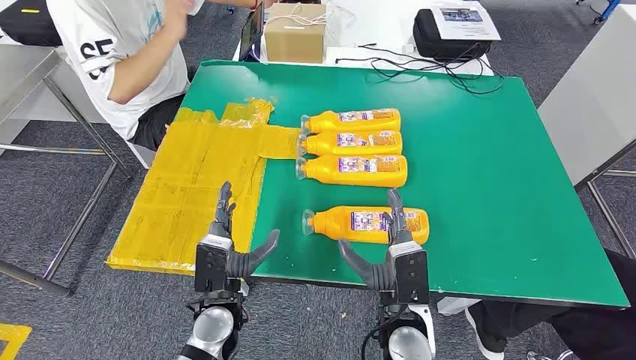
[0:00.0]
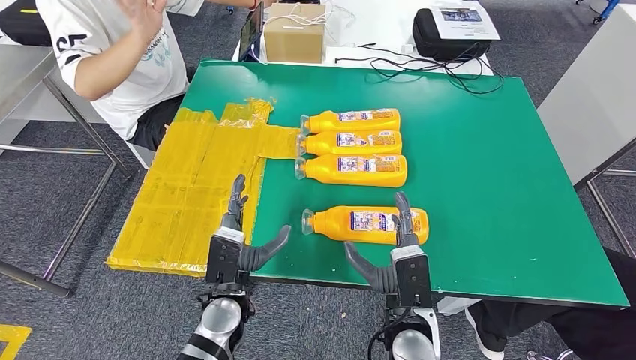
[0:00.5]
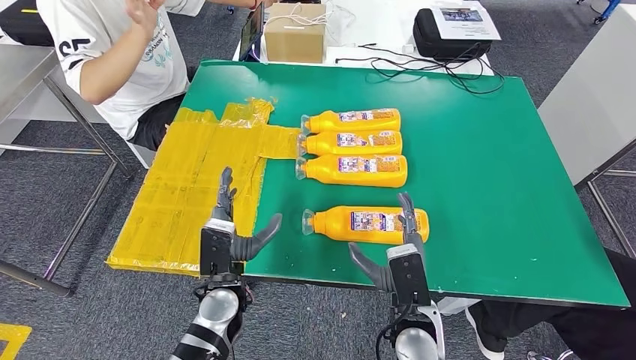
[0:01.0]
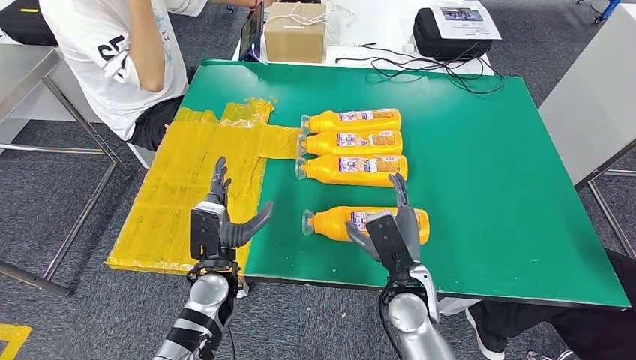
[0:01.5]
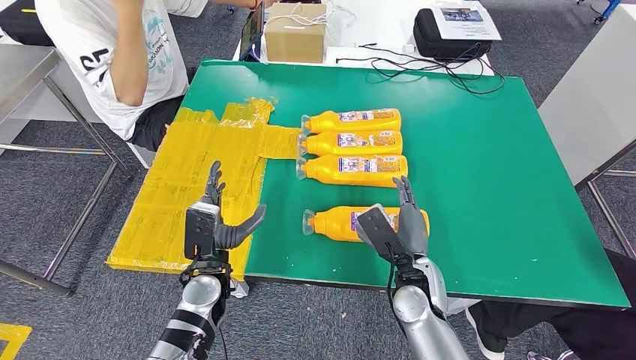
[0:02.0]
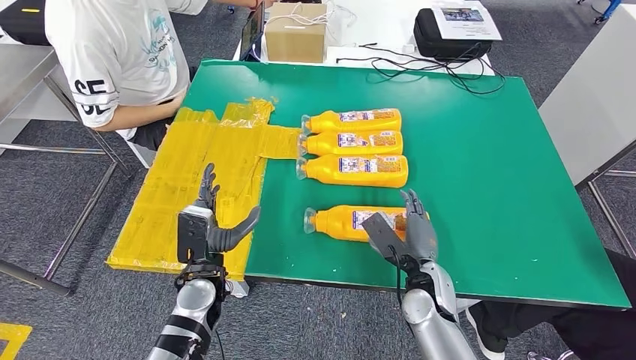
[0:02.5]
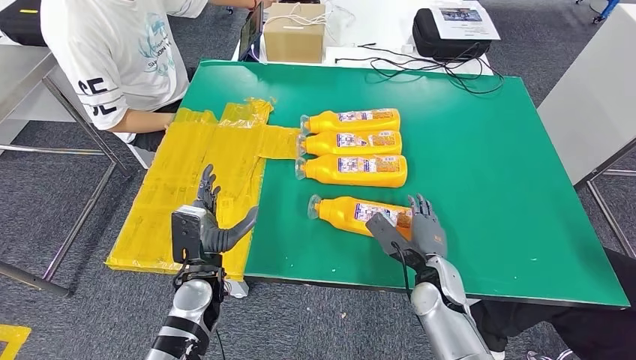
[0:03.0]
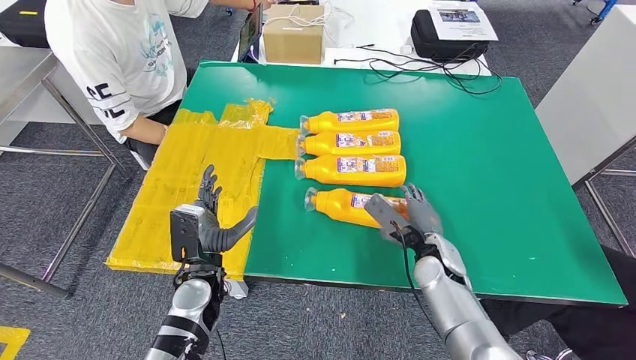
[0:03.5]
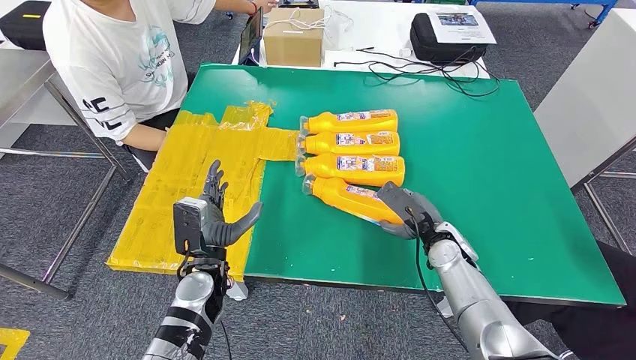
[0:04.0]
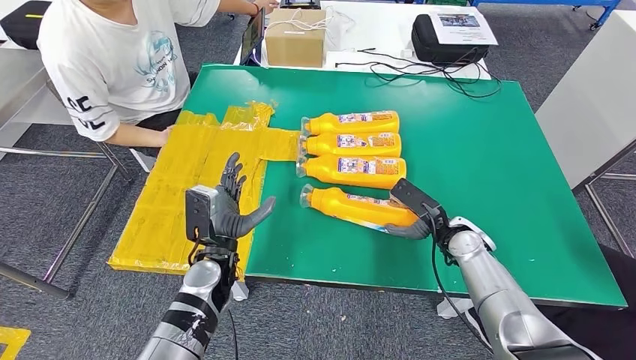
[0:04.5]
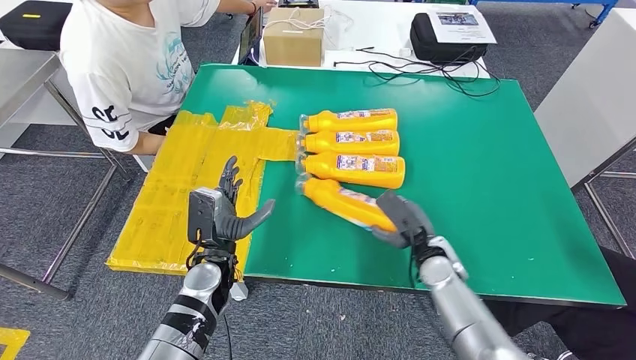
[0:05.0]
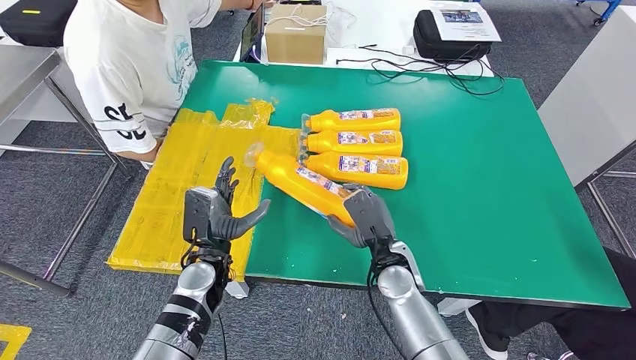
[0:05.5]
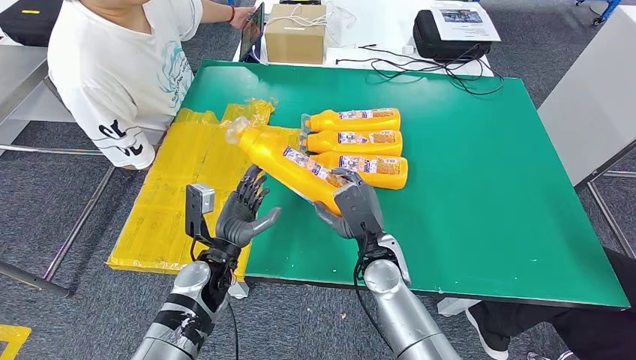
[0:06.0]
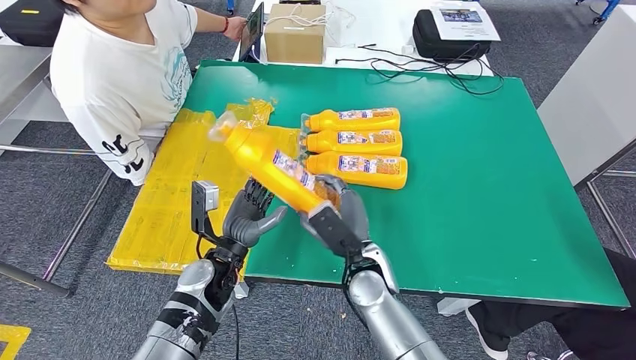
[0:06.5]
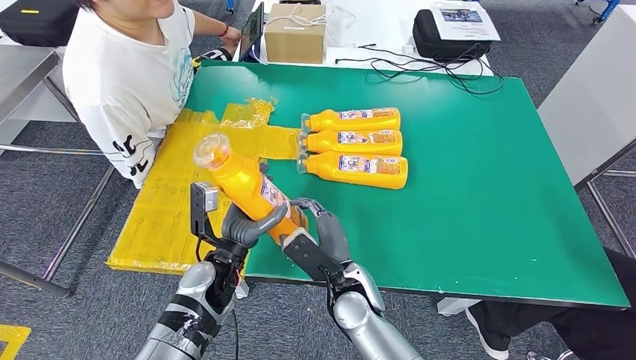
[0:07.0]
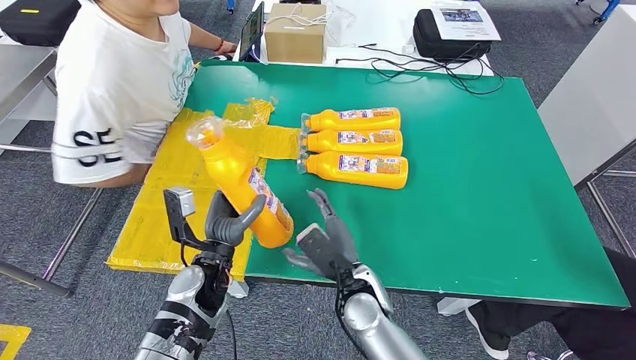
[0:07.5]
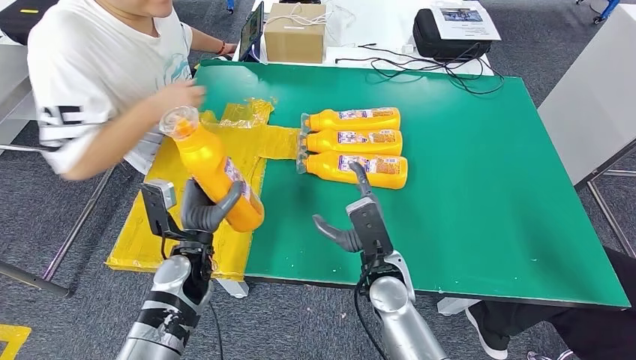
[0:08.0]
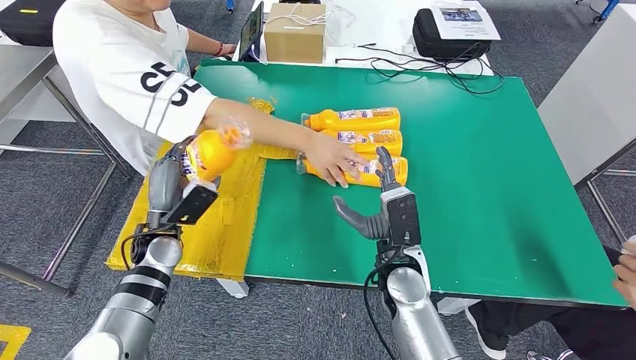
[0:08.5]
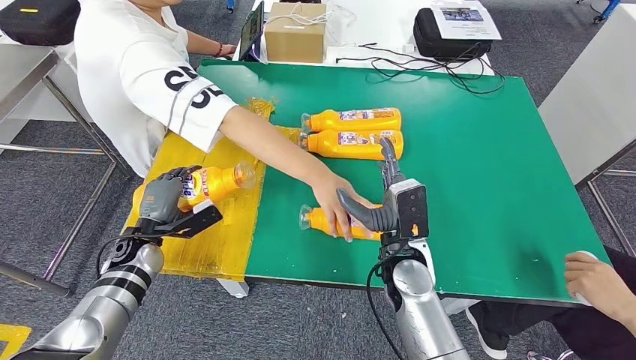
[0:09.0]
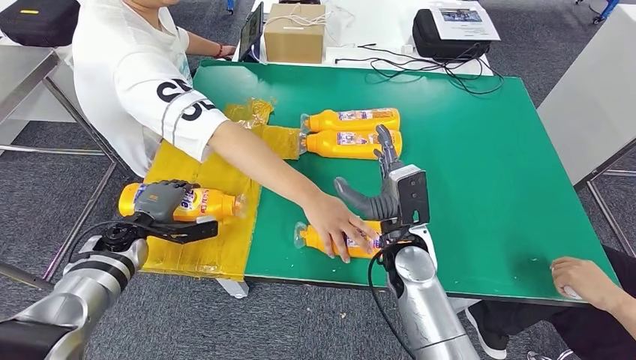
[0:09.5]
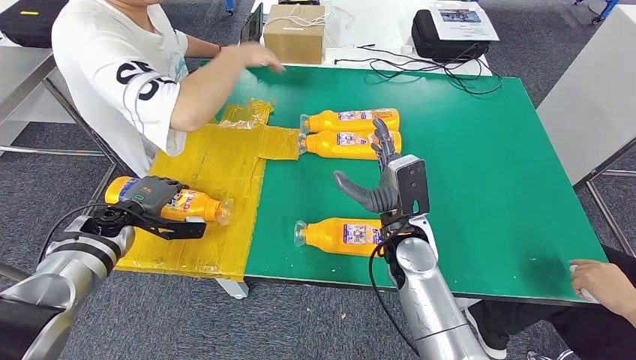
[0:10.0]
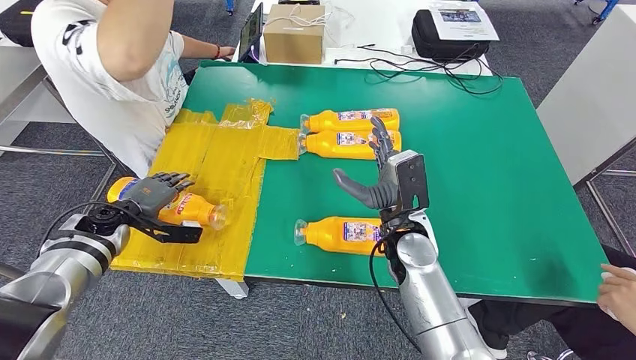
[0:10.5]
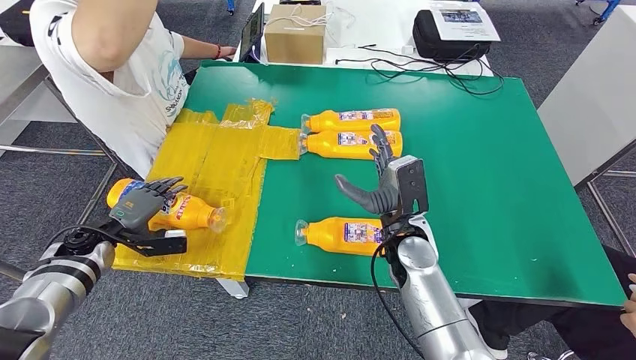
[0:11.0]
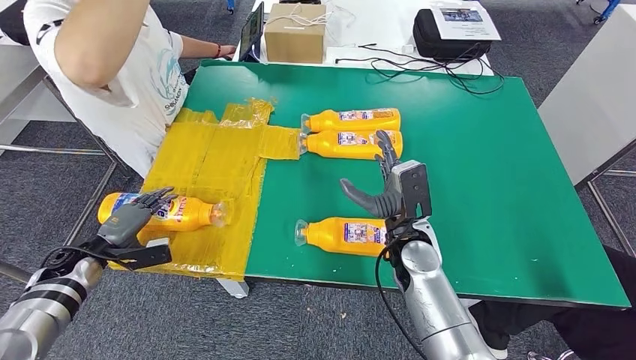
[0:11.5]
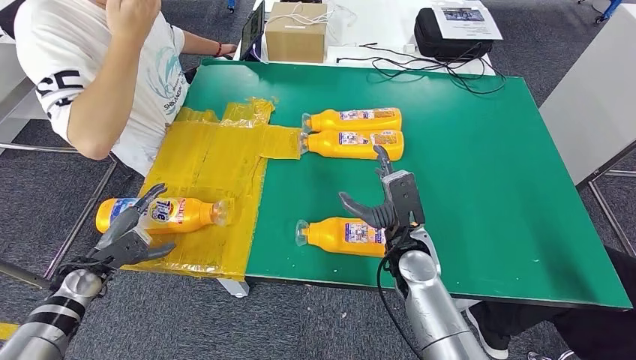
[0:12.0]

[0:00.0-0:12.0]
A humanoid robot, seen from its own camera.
Step, 0:00.0 to 0:05.5: Take the bottle from the table.

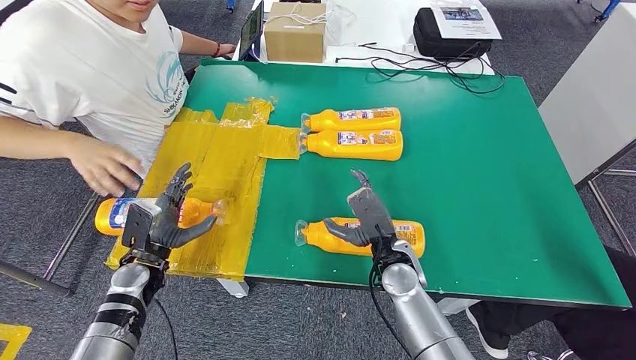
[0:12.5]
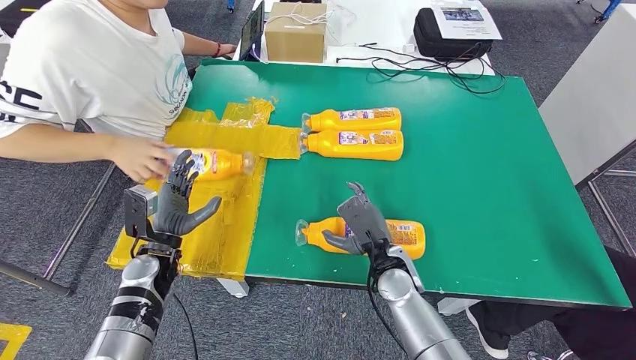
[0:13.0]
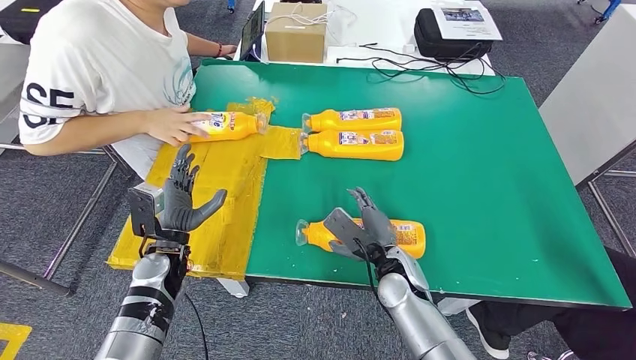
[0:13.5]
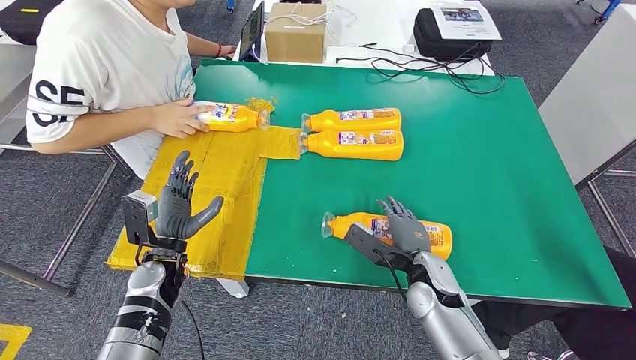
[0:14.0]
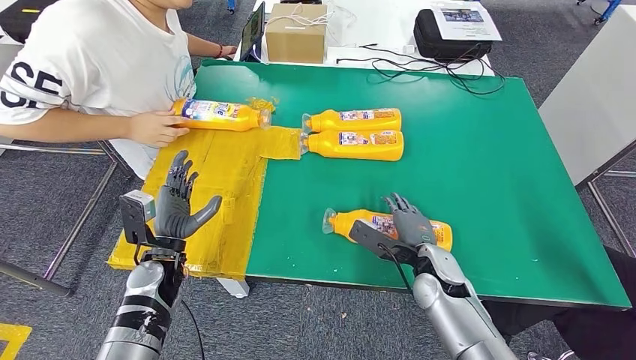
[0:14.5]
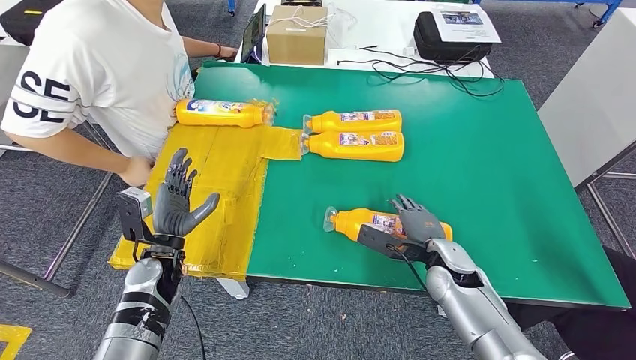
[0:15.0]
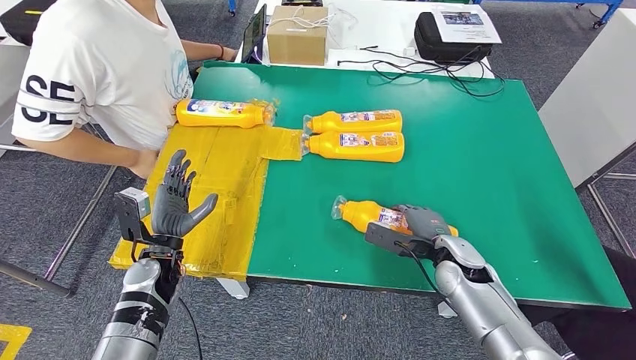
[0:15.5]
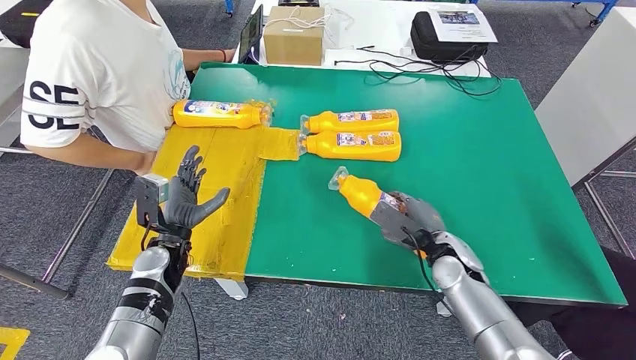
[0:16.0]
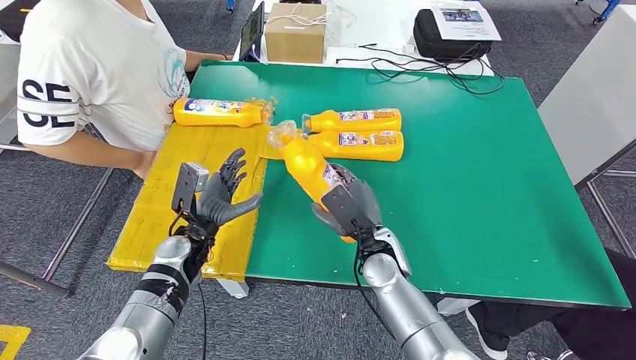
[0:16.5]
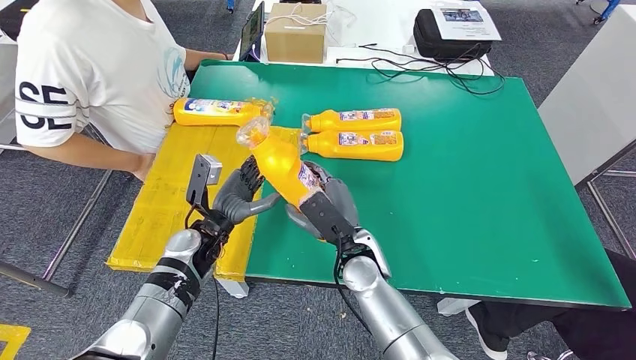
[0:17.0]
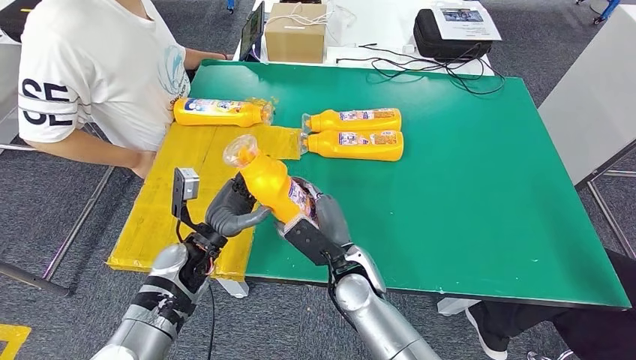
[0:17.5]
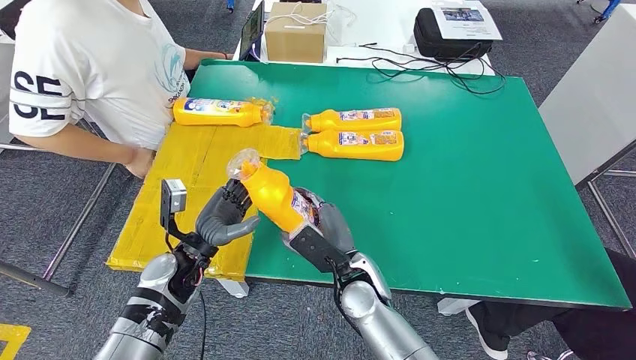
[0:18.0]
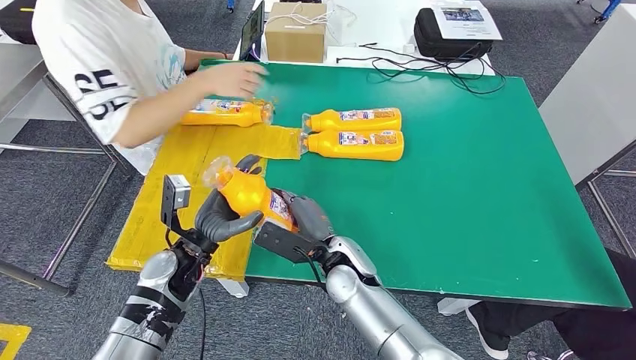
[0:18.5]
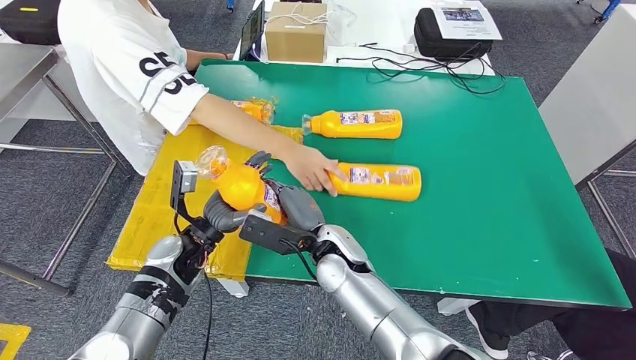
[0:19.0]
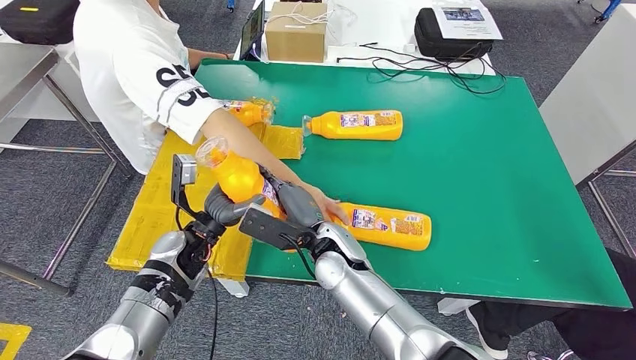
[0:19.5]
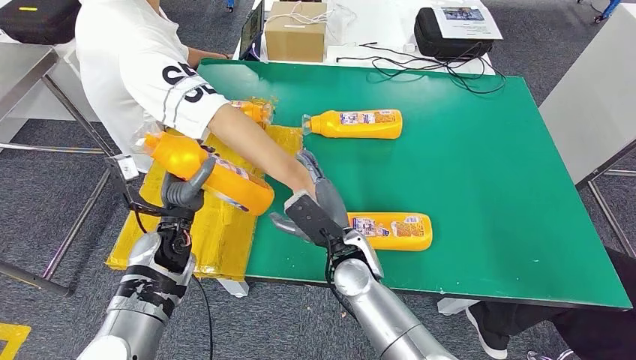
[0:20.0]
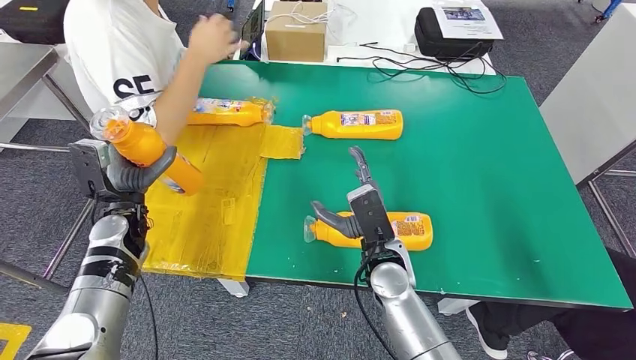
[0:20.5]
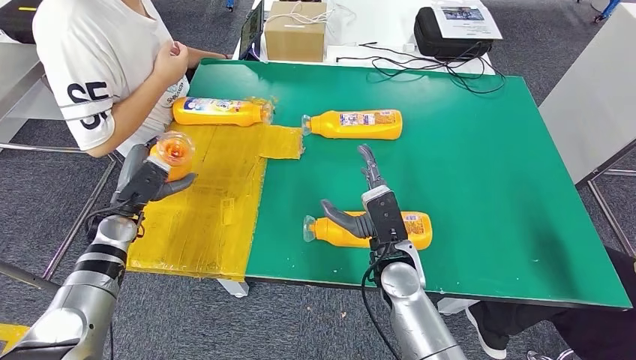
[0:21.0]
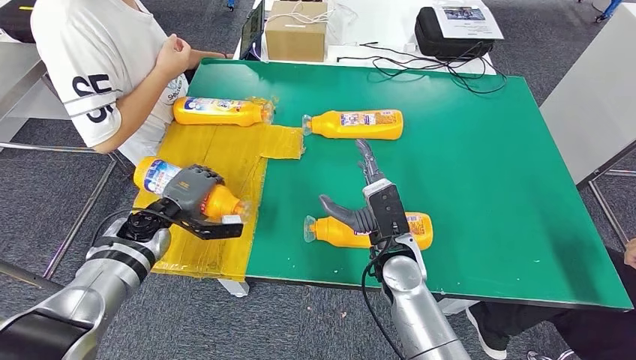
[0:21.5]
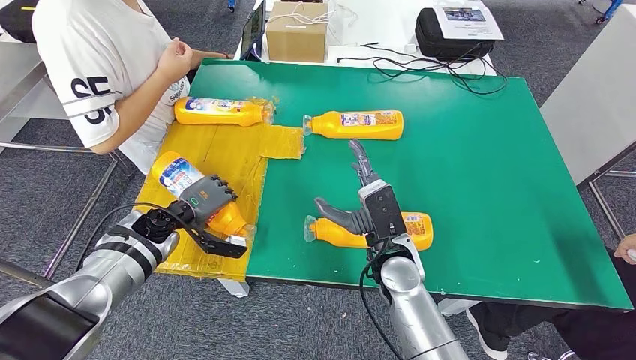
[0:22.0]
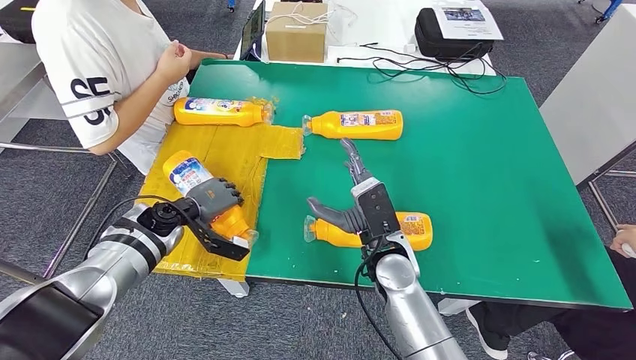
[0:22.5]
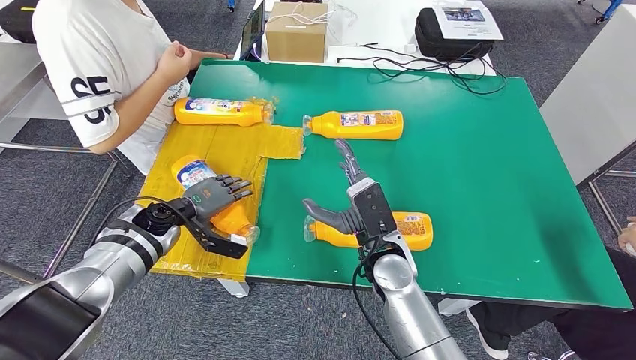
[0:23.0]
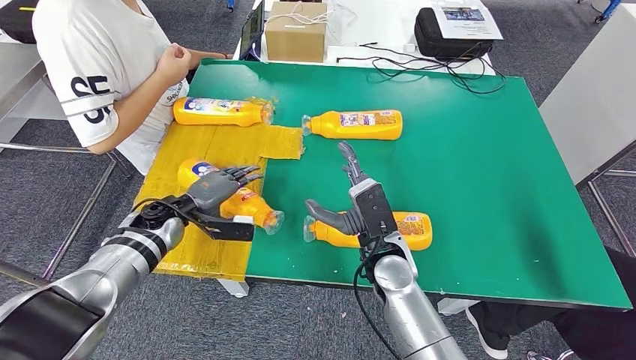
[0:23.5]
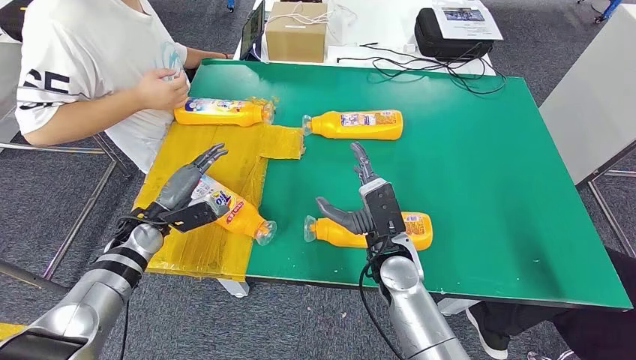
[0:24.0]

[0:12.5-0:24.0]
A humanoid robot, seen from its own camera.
Step, 0:13.0 to 0:16.5: Pick up the bottle from the table.
Step, 0:17.0 to 0:24.0: Flip the bottle to face forward.
